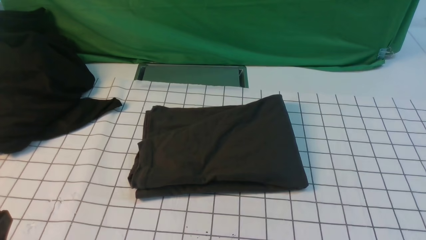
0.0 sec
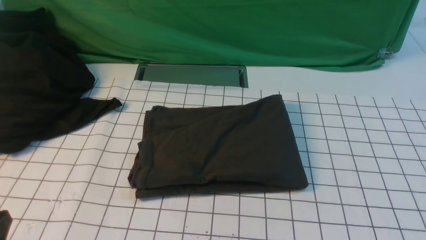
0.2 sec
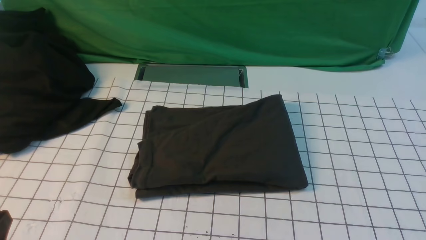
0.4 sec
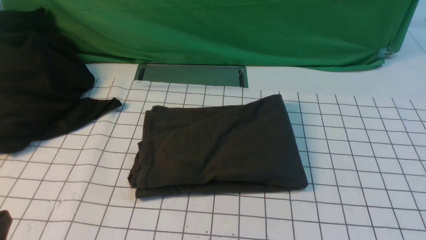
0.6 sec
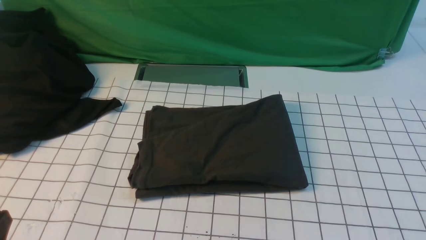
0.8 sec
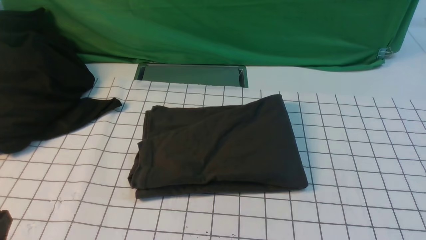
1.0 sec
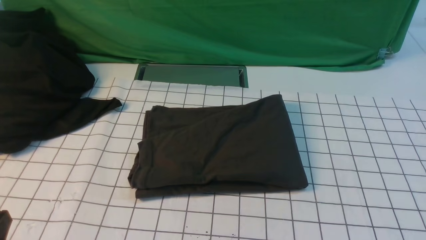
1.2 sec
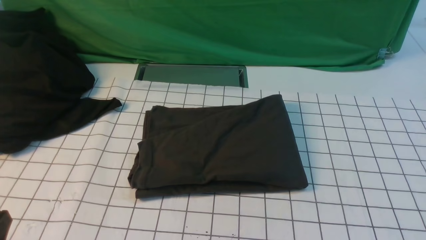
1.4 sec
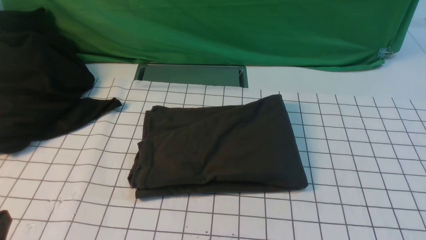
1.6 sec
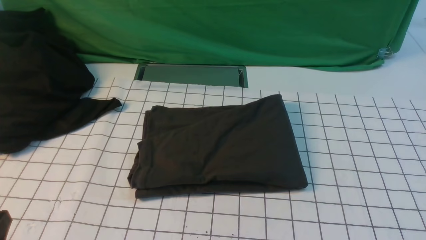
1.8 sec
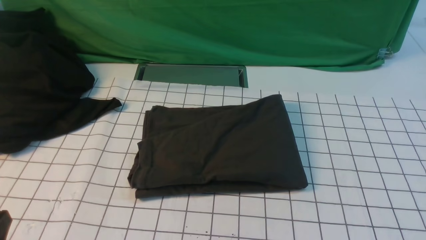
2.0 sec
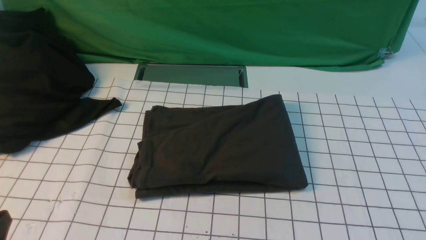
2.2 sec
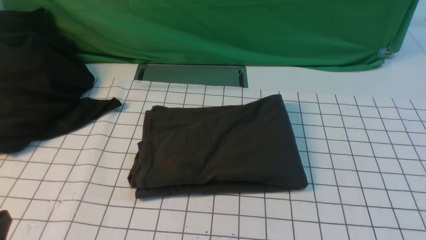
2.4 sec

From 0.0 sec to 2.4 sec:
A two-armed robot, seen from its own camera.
From 1.2 sec to 2.4 sec: Both grippers stay about where they are.

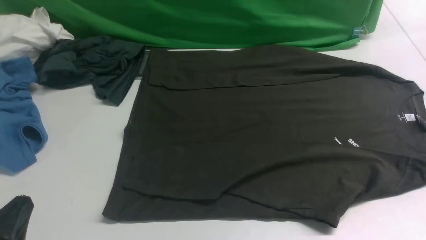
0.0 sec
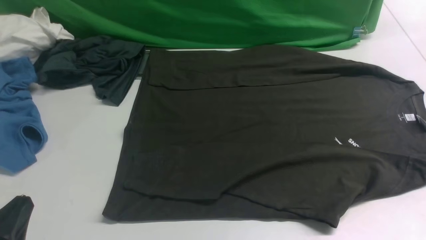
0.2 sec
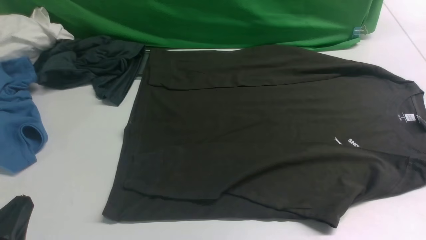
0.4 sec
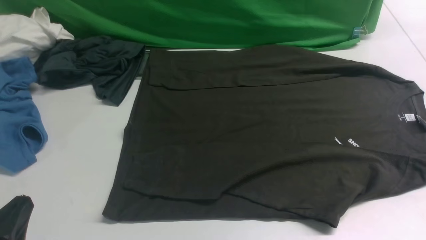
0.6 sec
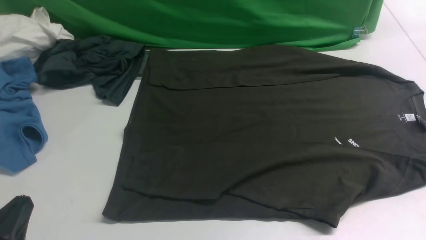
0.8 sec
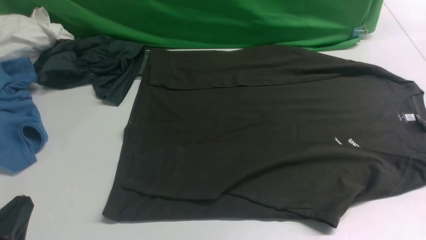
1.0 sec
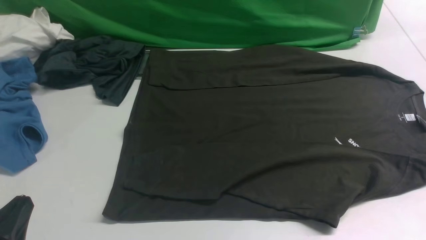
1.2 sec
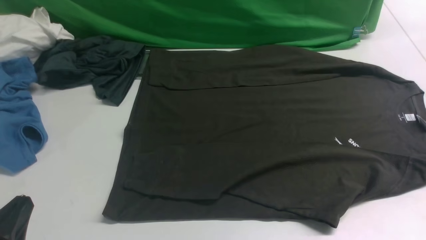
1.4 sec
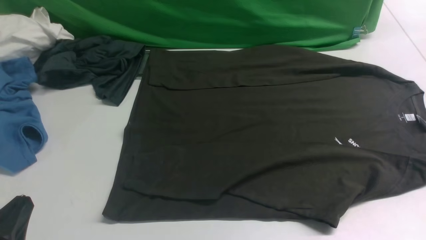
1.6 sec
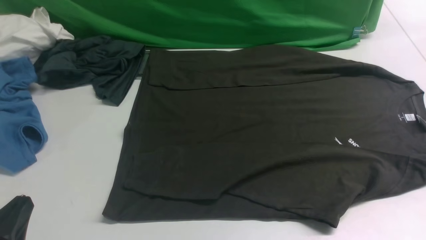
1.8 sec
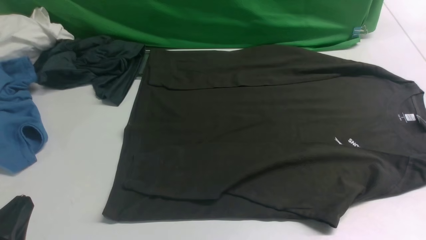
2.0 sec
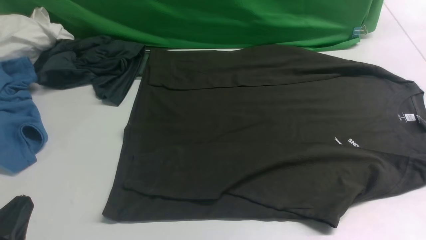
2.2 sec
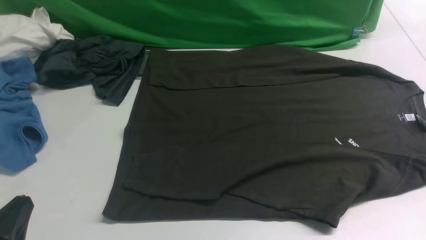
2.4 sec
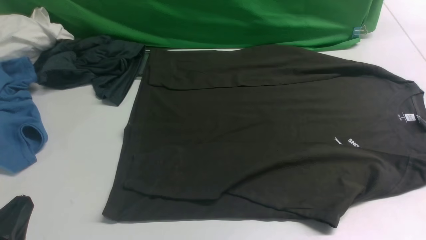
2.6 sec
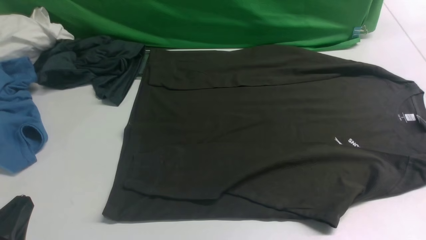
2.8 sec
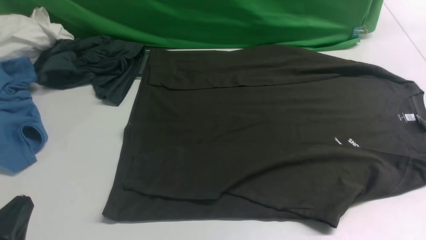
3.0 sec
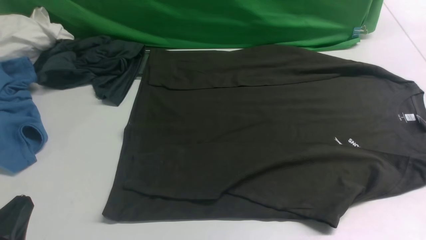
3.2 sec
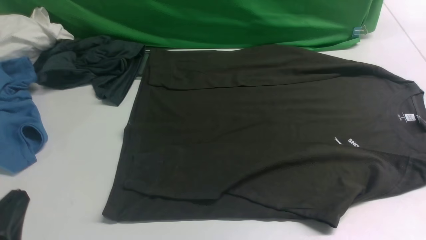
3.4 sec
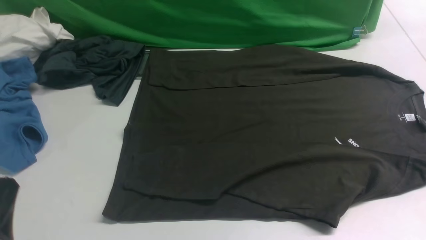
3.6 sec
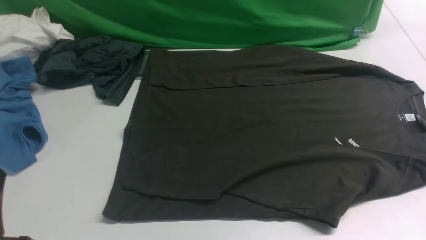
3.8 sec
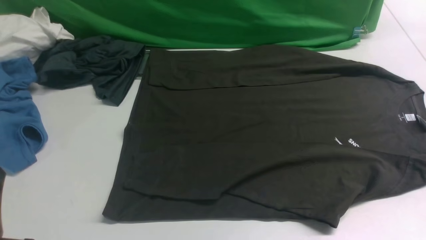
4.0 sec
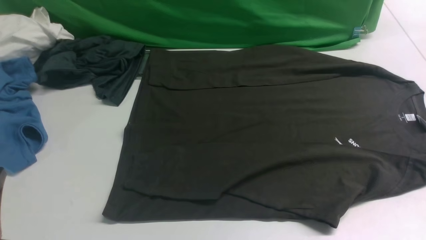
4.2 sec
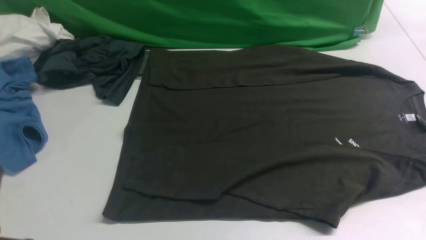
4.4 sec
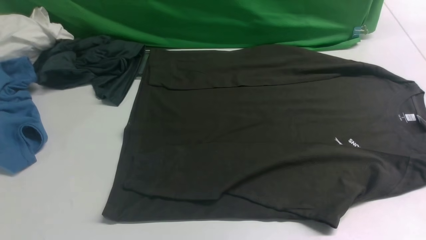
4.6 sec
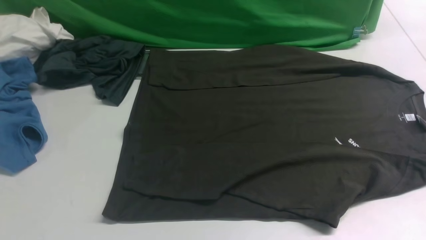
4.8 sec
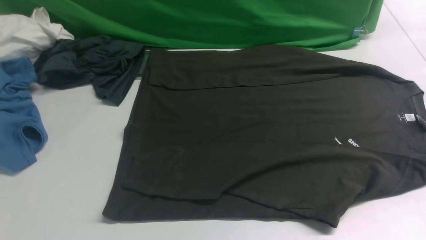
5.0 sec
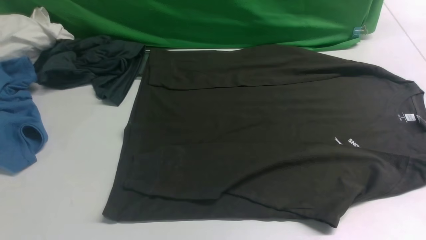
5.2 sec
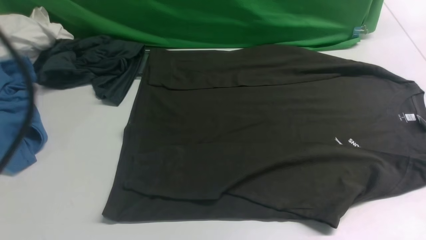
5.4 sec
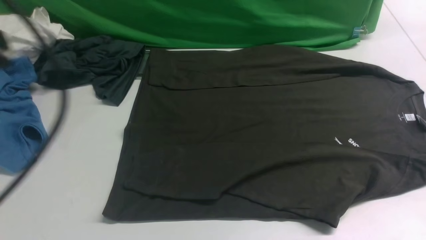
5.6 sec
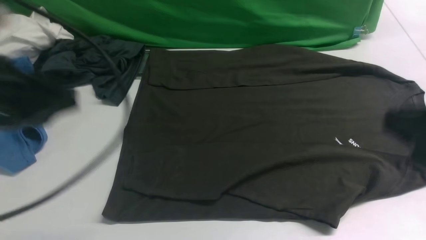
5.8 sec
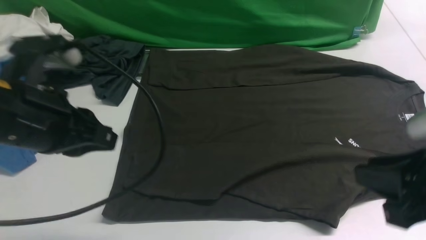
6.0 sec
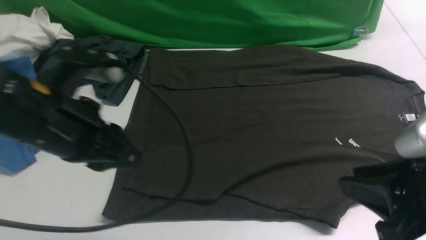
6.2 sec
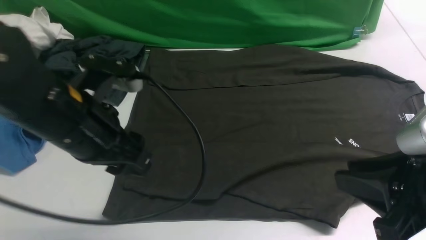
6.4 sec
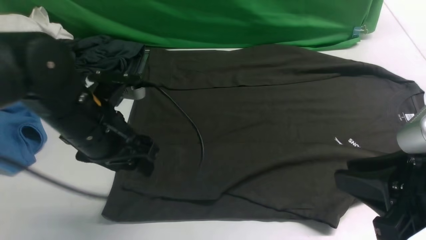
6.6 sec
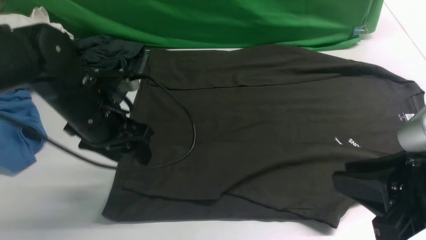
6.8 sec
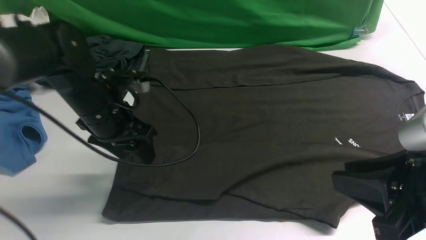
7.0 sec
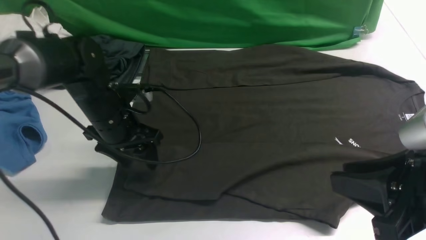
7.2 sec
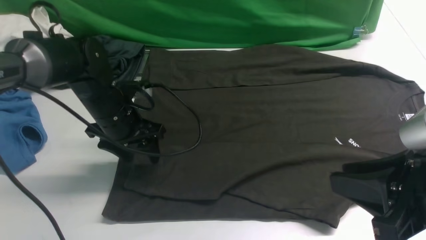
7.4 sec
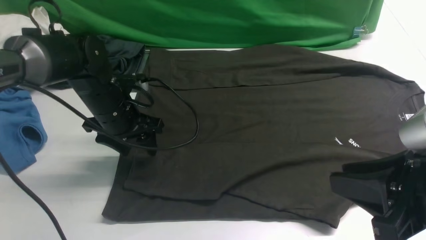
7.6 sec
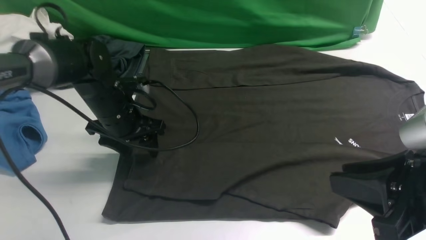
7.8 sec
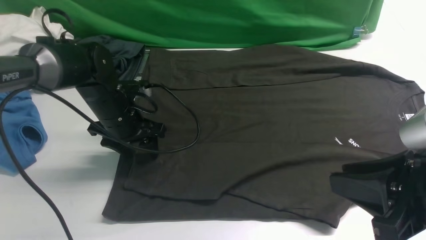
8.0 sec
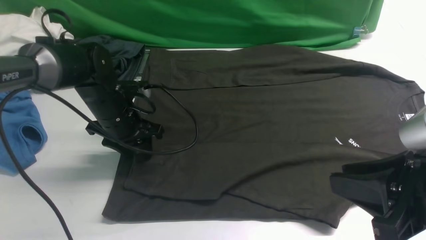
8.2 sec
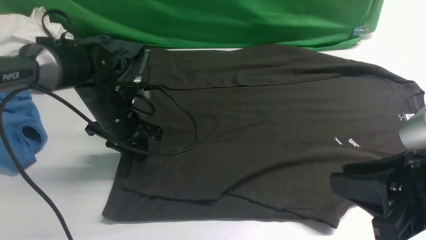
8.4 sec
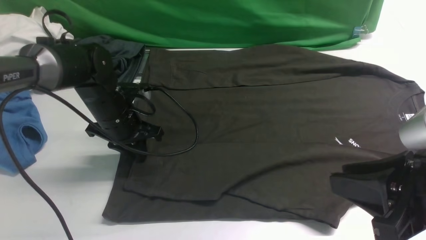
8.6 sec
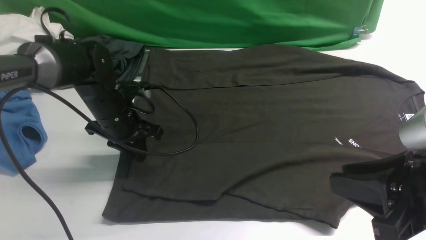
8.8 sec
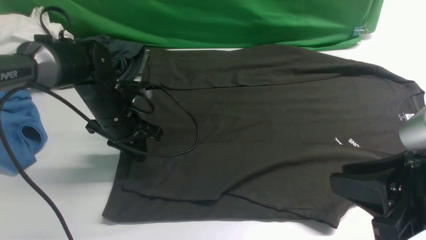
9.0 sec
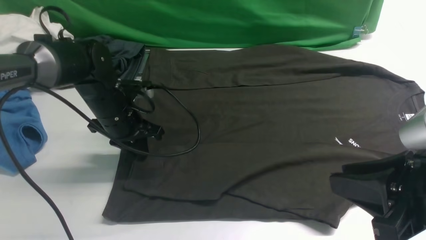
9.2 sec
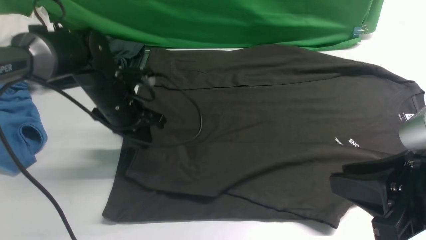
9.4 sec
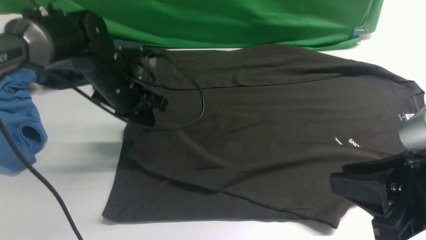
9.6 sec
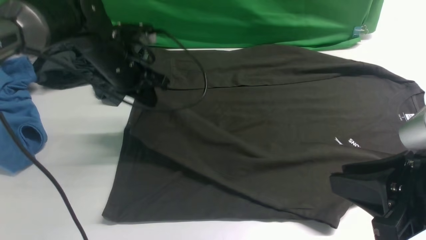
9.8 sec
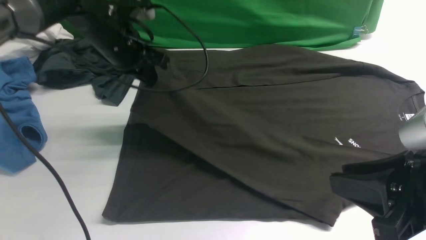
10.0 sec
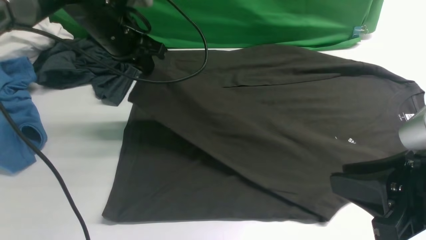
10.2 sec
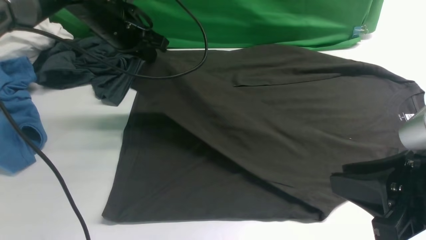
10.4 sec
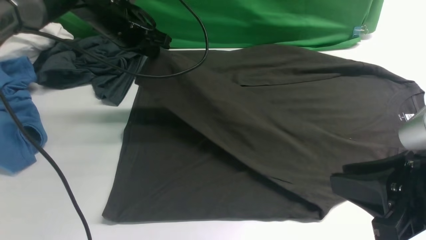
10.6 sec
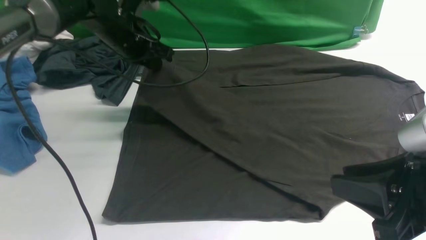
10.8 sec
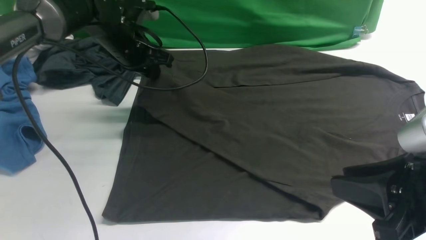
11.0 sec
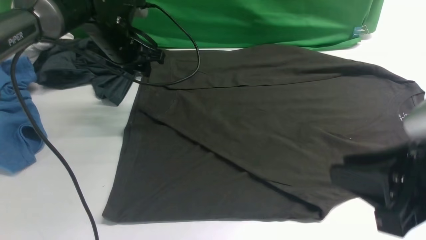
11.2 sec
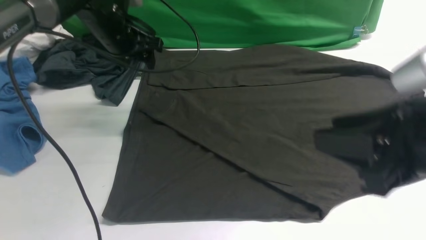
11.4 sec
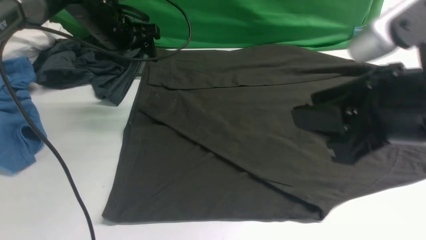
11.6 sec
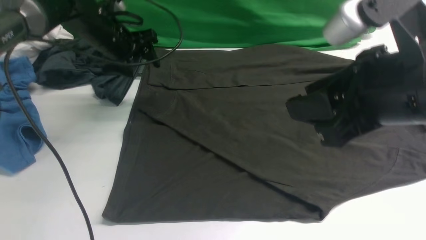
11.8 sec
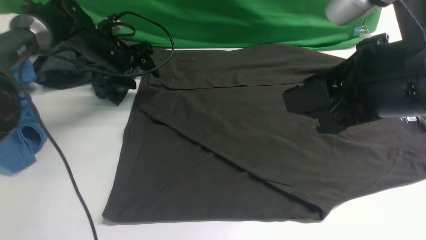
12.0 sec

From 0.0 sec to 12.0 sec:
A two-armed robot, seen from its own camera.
Step, from 0.0 sec to 9.4 sec: use the left arm to clamp the cuff closest to it.
Step, from 9.6 sec to 11.2 sec: use the left arm to drag and place the cuff at the centered position on the left edge of the fabric.
From 0.0 sec to 3.0 sec: Both grippers stay about where they are.
From 4.4 sec to 6.0 sec: The right gripper heads forward and to the left, covering roughly 10 cm, and moves about 15 cm upward and comes back. Meanwhile the left gripper shifts some 20 cm forward and upward.
From 6.0 sec to 7.6 sec: The left gripper moves forward and downward, approximately 20 cm, and opens.
From 7.6 sec to 9.0 sec: The left gripper closes.
From 9.0 sec to 10.4 sec: The left gripper heads upward and forward, covering some 15 cm.
From 10.4 sec to 12.0 sec: The left gripper travels downward, forward and to the left by about 15 cm, and opens up, while the right gripper shifts about 10 cm upward and forward.

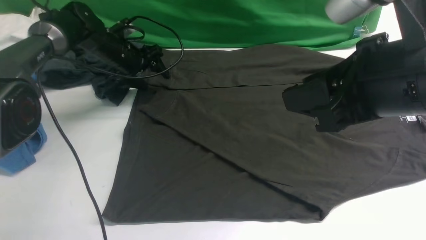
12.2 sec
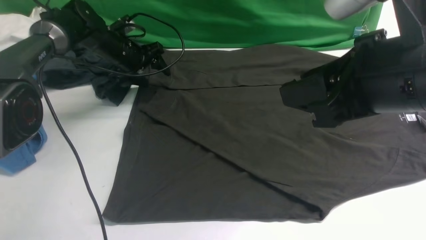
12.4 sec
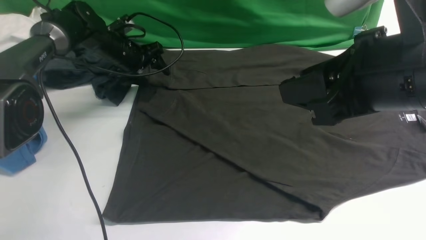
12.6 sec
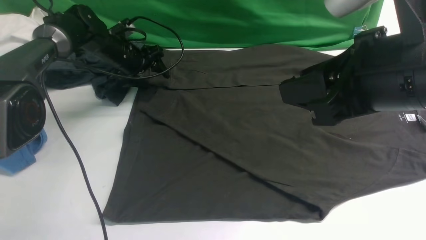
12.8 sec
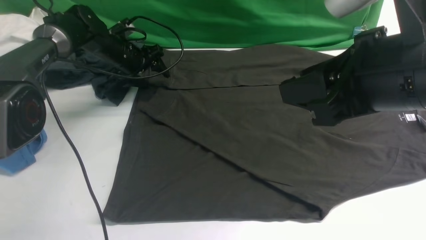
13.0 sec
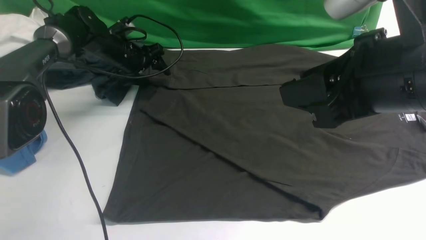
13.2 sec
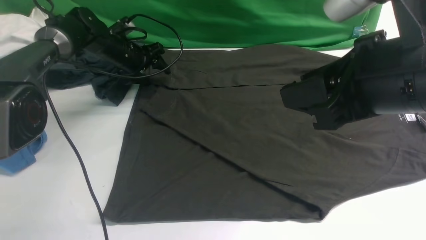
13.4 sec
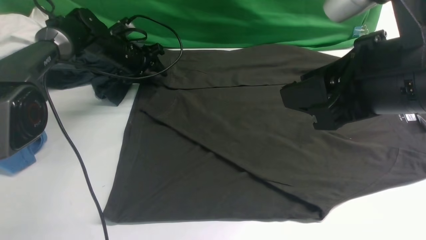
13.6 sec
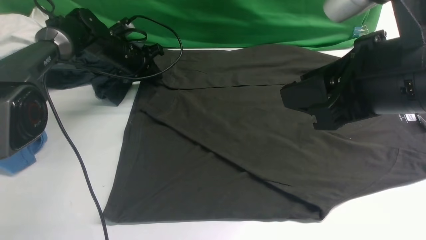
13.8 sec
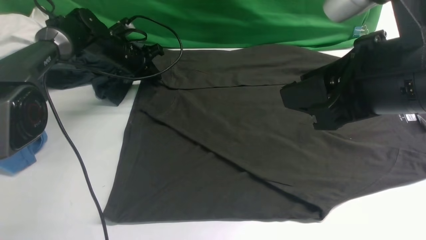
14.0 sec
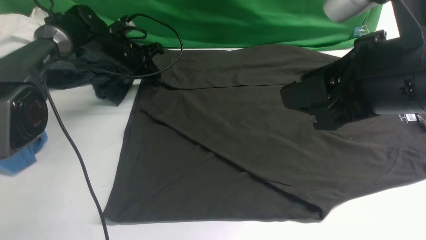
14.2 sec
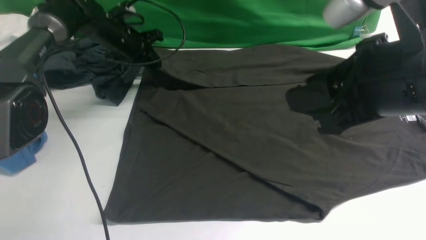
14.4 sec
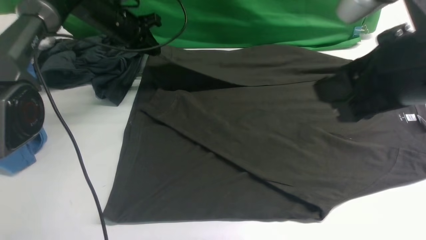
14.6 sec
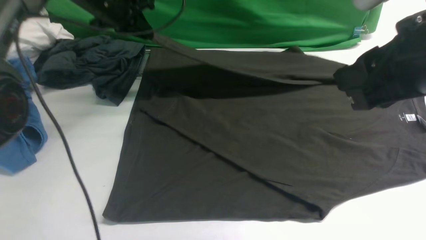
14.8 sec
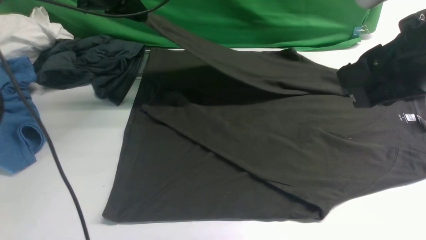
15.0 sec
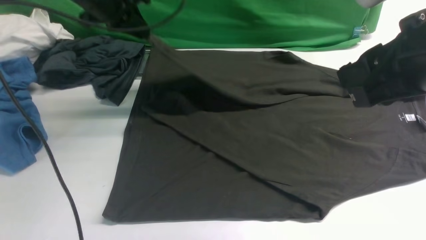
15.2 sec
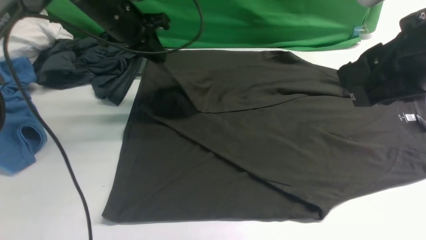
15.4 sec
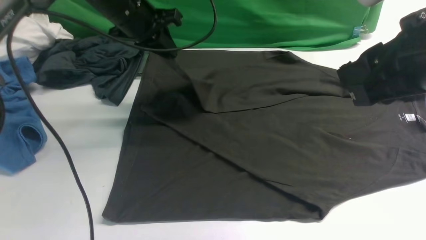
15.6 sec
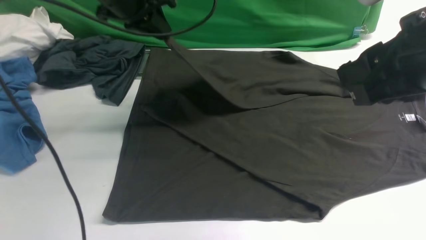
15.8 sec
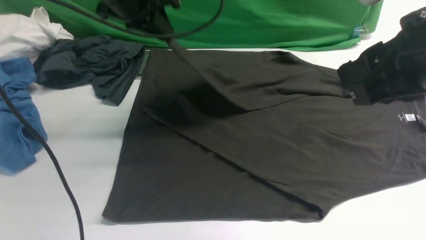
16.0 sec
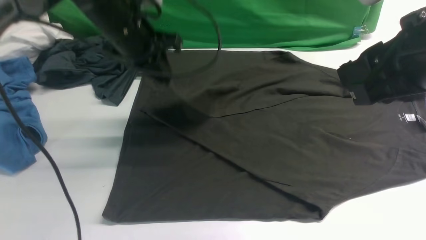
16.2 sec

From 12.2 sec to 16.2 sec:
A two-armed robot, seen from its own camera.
Step, from 12.2 sec to 14.2 sec: use the left arm to clamp the cuff farthest from it.
From 12.2 sec to 13.6 sec: The left gripper closes.
From 13.6 sec to 14.8 sec: The left gripper goes some 15 cm upward, and closes up.
From 14.8 sec to 16.2 sec: The left gripper travels backward and to the right by some 10 cm.
